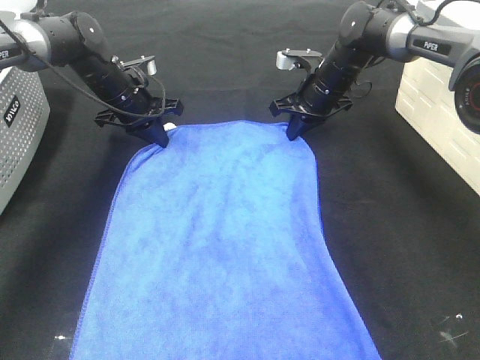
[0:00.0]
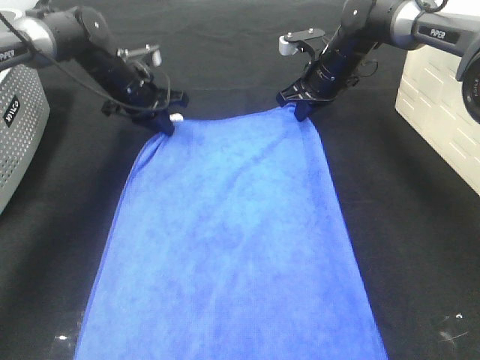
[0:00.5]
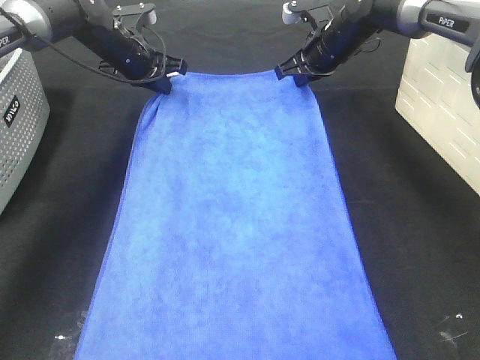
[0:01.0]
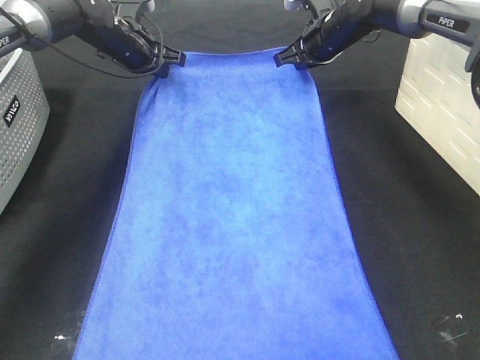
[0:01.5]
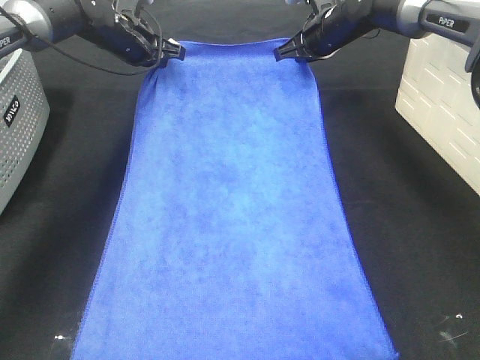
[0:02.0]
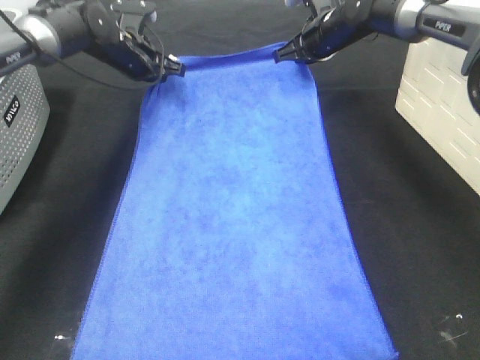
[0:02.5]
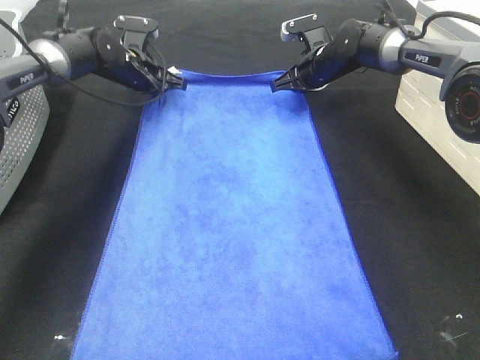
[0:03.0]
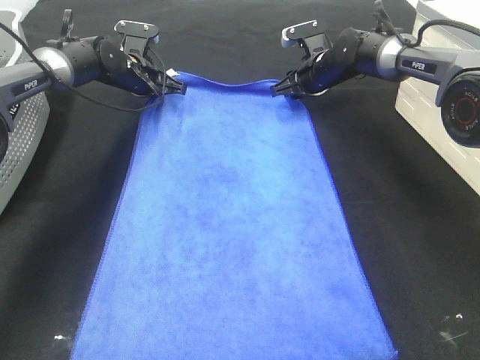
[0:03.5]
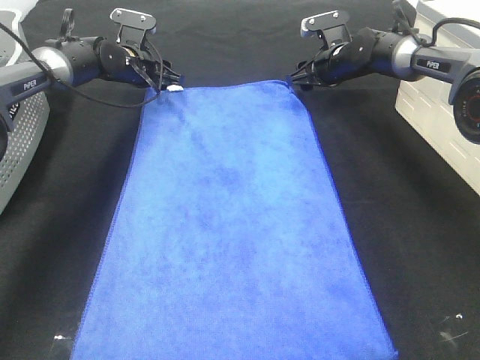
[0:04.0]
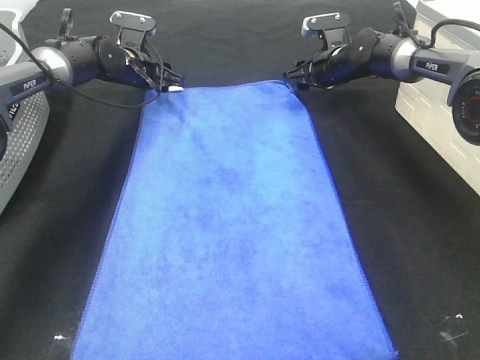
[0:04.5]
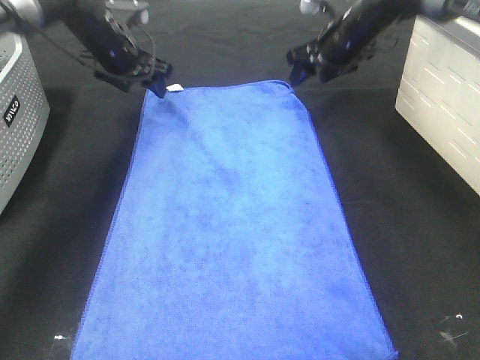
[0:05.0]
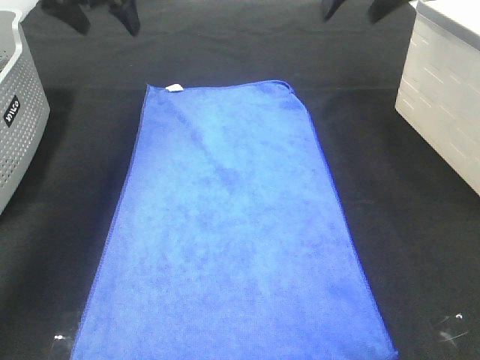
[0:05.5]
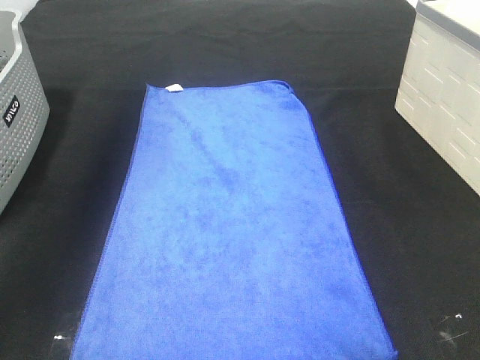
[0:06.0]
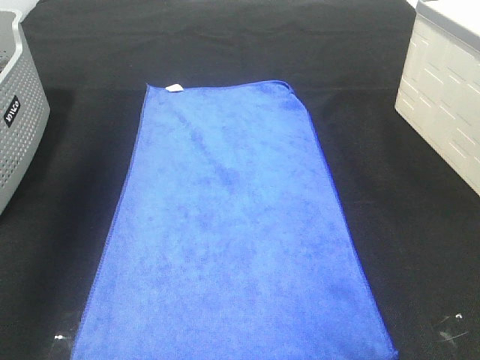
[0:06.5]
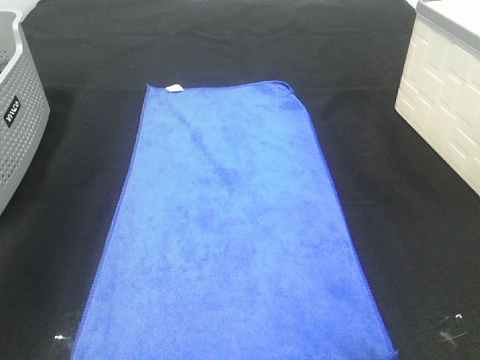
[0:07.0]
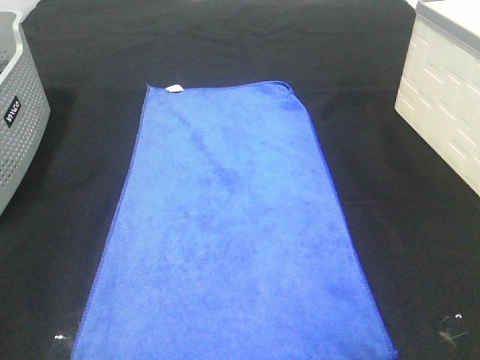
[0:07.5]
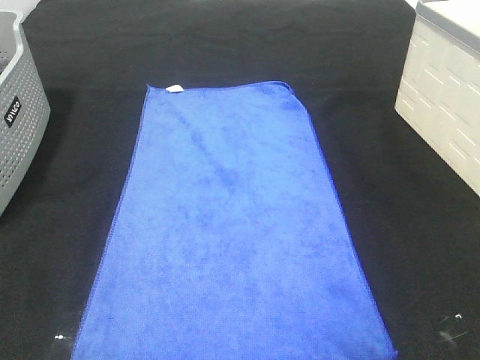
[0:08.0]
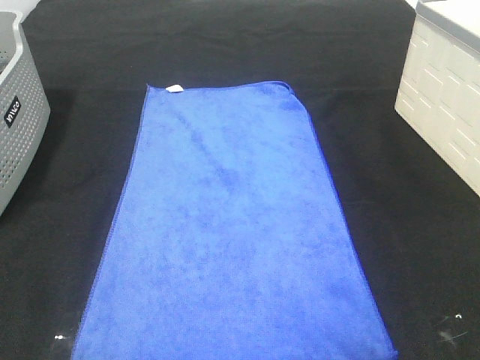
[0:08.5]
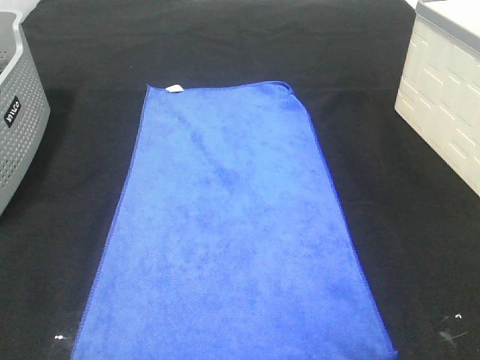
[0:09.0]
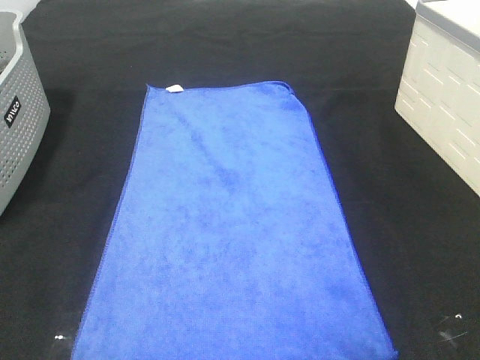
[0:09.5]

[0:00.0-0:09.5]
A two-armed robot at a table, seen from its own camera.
Task of the whole recording: Remove the towel and place it.
0:00.0 to 0:02.0: The left gripper goes some 10 cm upward and forward. The right gripper shifts roughly 5 cm upward.
0:02.0 to 0:04.0: The two grippers go approximately 5 cm downward. The right gripper opens up. Meanwhile the left gripper opens.
0:04.0 to 0:05.5: The two grippers go some 25 cm upward and backward.
0:05.5 to 0:07.5: The two grippers go some 40 cm backward.
